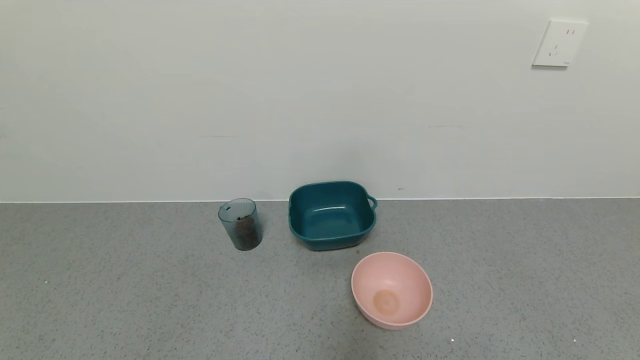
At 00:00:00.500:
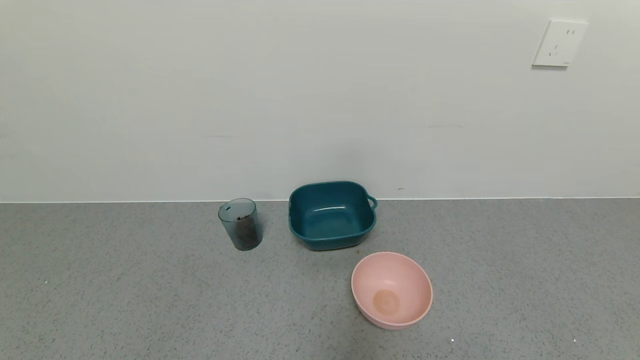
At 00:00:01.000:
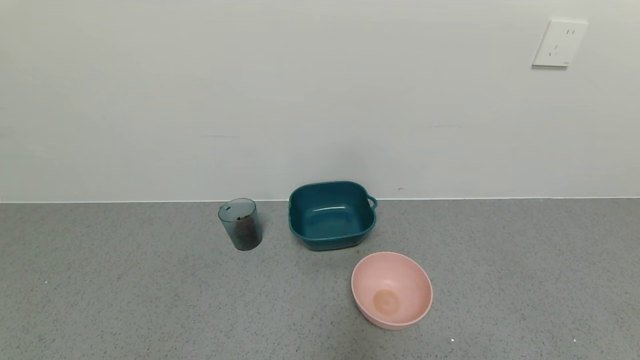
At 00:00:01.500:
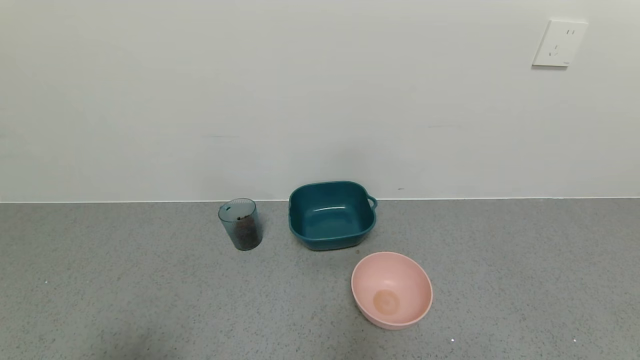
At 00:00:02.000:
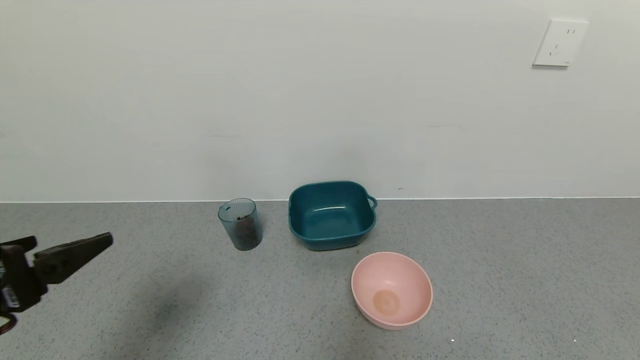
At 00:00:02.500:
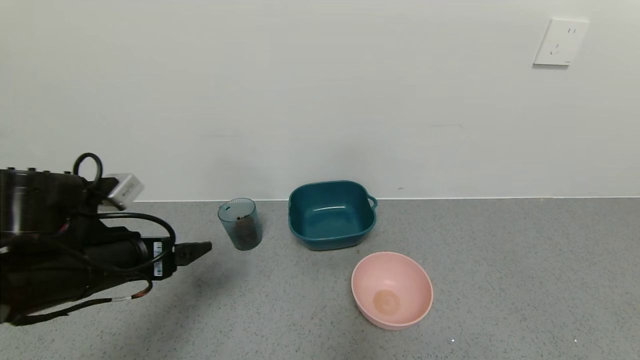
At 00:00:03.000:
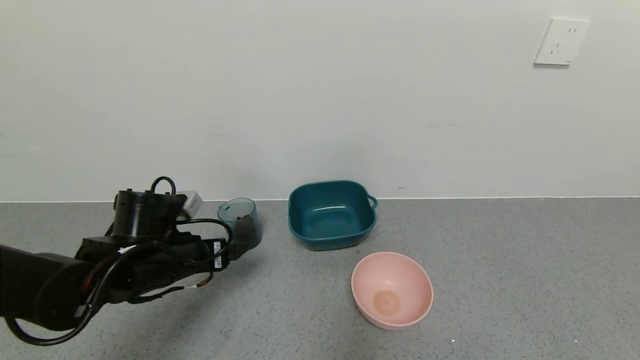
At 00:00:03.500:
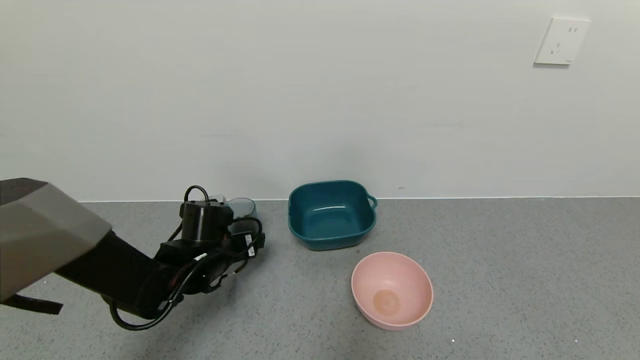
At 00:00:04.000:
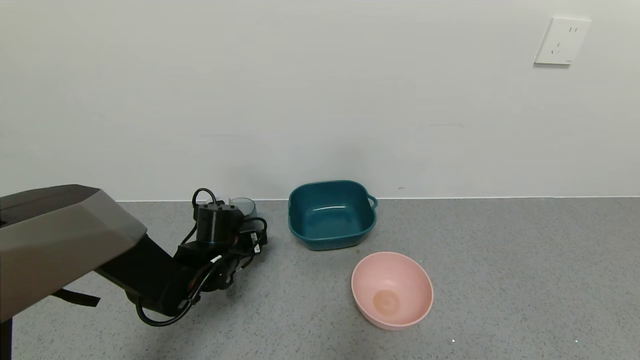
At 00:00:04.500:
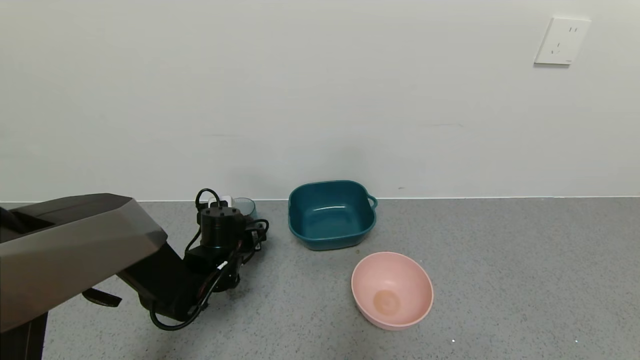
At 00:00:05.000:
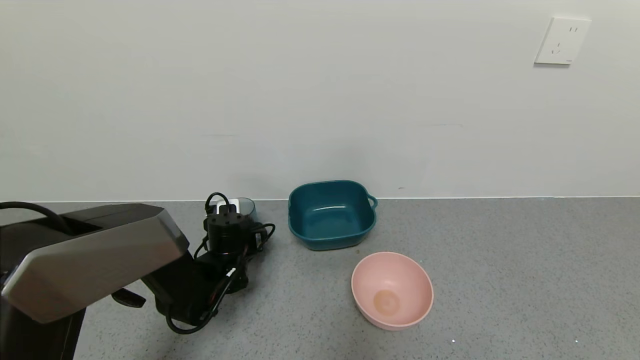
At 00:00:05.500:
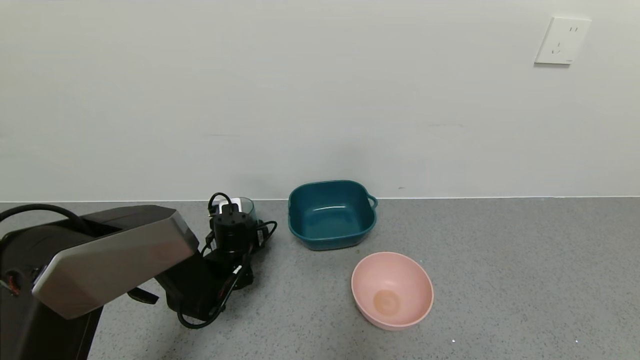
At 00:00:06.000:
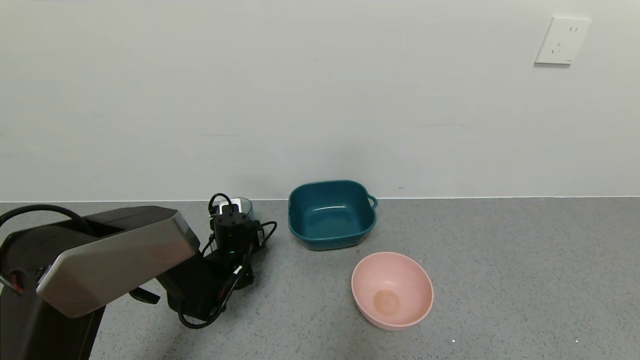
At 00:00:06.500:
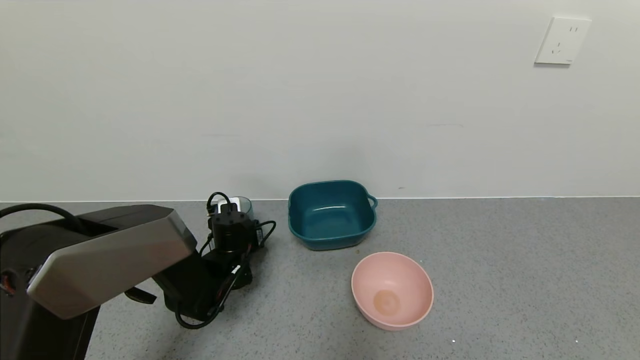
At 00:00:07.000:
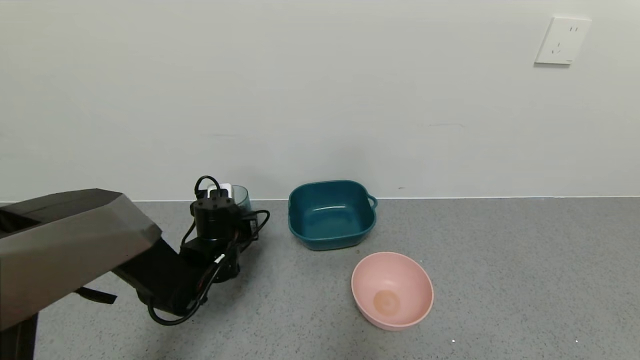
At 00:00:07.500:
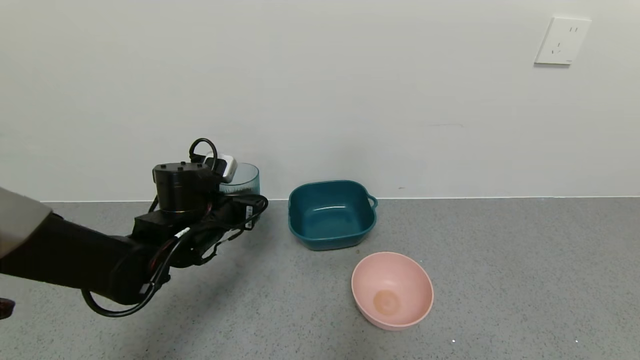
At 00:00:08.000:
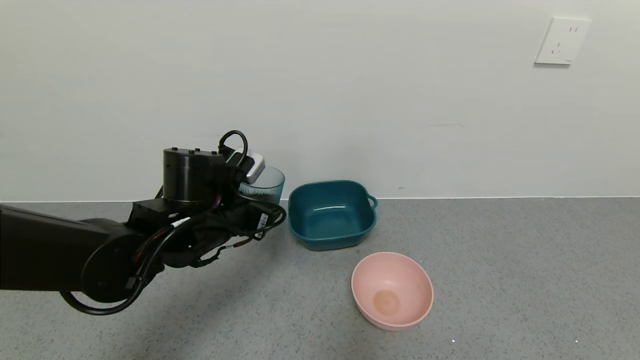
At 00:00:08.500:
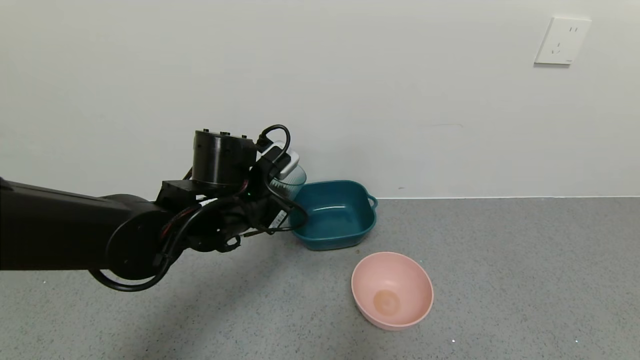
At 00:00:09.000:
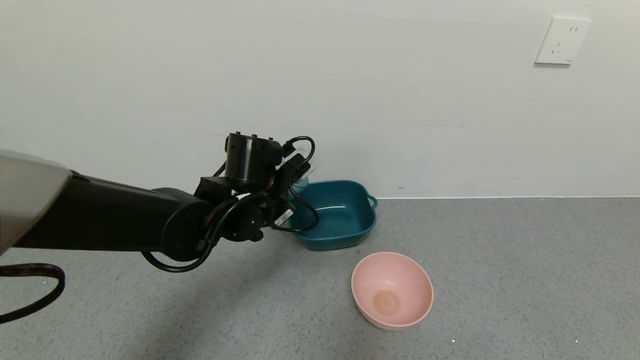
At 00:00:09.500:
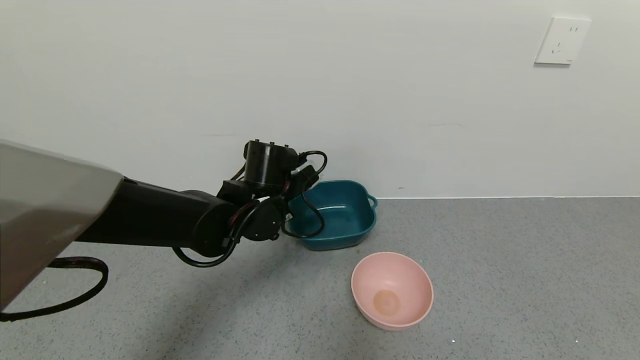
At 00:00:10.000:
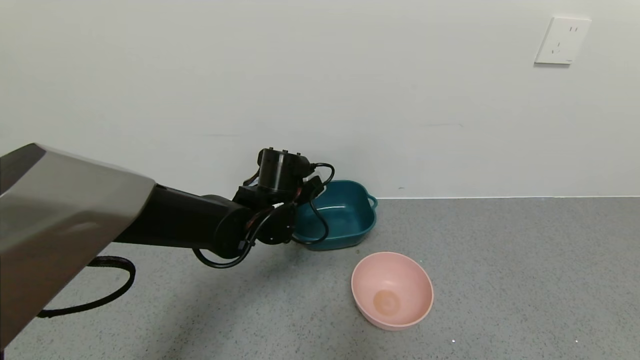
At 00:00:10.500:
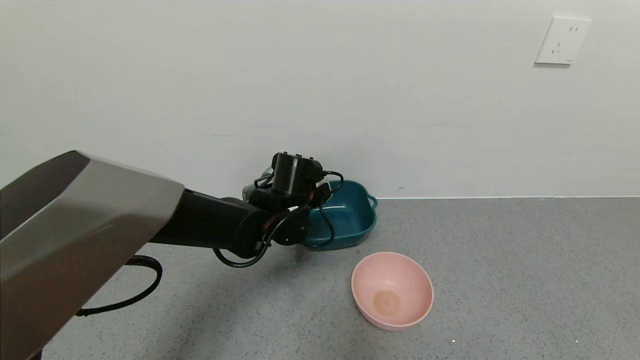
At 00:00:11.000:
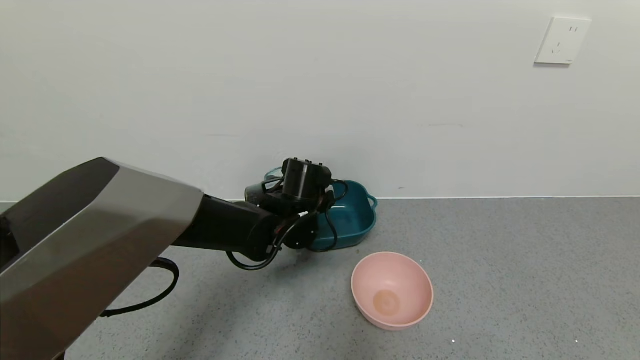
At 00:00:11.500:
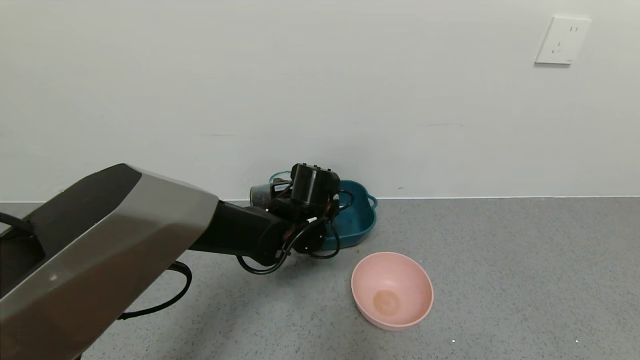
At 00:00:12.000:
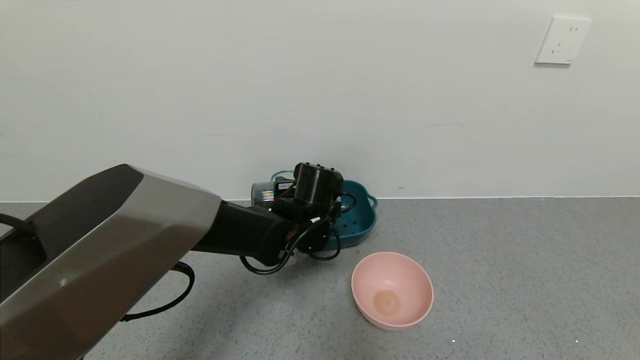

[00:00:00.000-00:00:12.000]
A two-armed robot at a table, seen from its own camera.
Task of the whole recording: use a gripper to pick up the cup and pour the solid into a bowl or tray.
Step, 00:00:00.000 to 00:00:06.000: Grasp the glass of coffee beans with the left gripper.
00:00:00.000 to 00:00:02.000: The left gripper heads upward and forward, covering about 20 cm.
00:00:02.000 to 00:00:04.000: The left gripper heads forward, downward and to the right, covering some 30 cm.
00:00:04.000 to 00:00:06.000: The left gripper shifts by some 5 cm, and closes.
00:00:06.000 to 00:00:08.000: The left gripper travels upward and backward by about 20 cm.
00:00:08.000 to 00:00:10.000: The left gripper goes about 10 cm to the right and forward.

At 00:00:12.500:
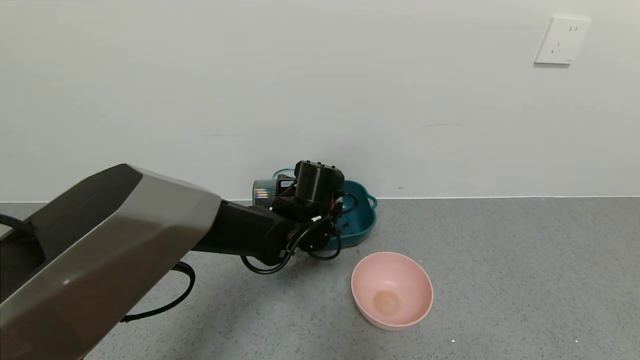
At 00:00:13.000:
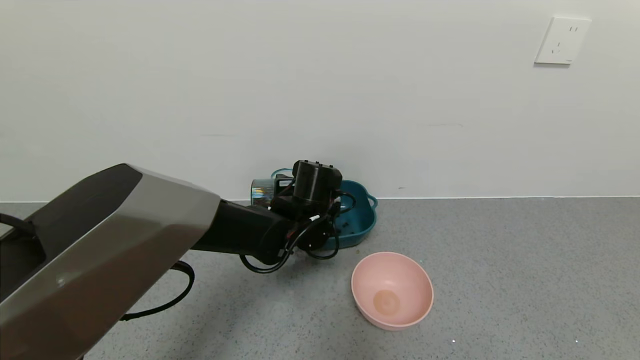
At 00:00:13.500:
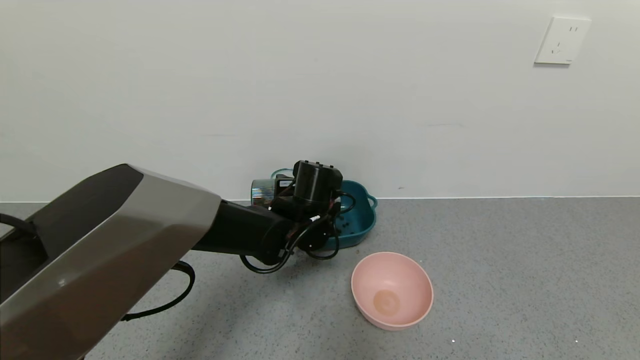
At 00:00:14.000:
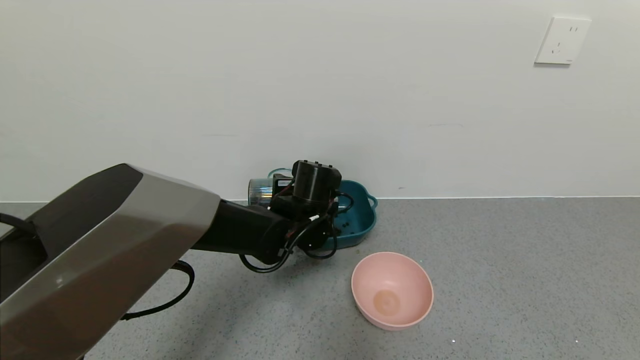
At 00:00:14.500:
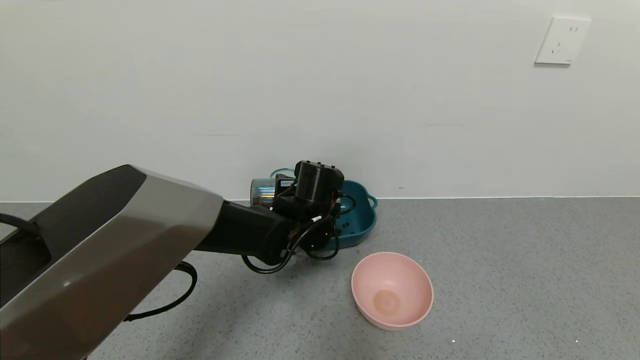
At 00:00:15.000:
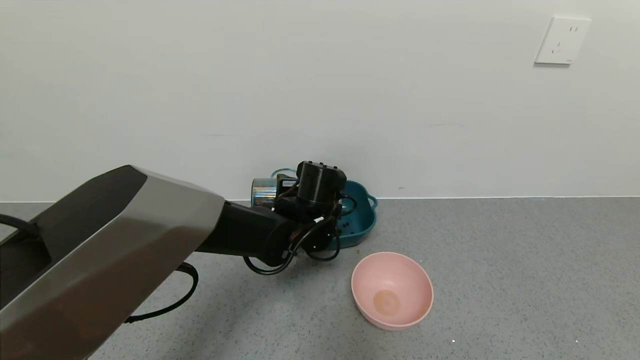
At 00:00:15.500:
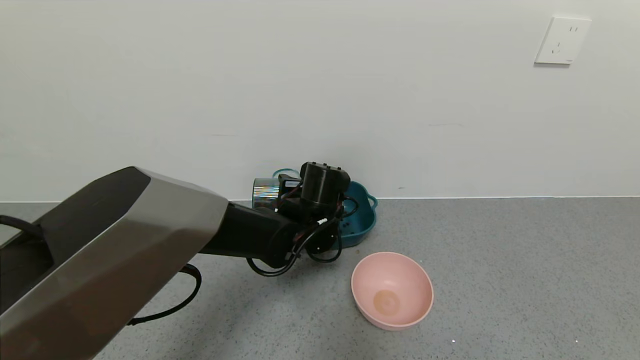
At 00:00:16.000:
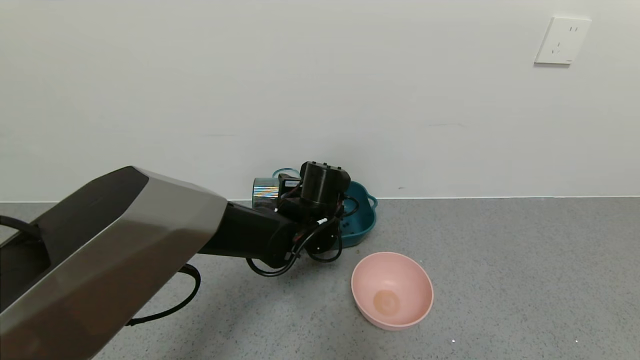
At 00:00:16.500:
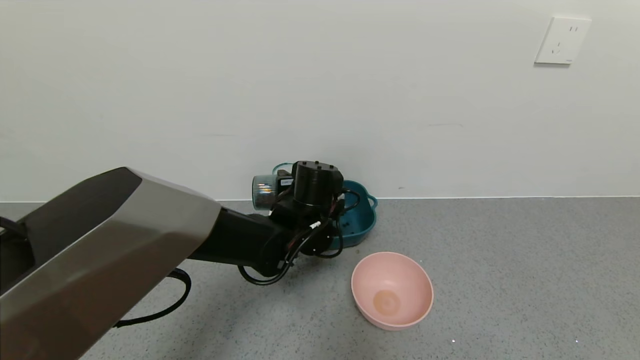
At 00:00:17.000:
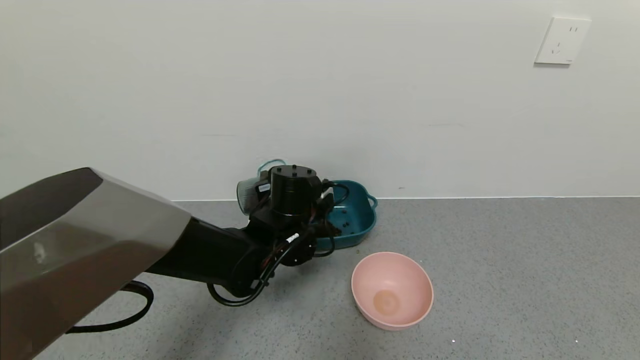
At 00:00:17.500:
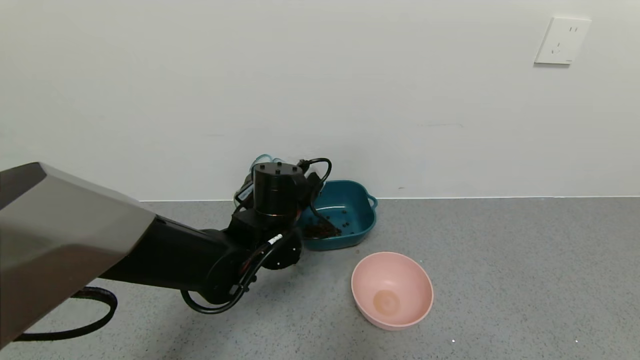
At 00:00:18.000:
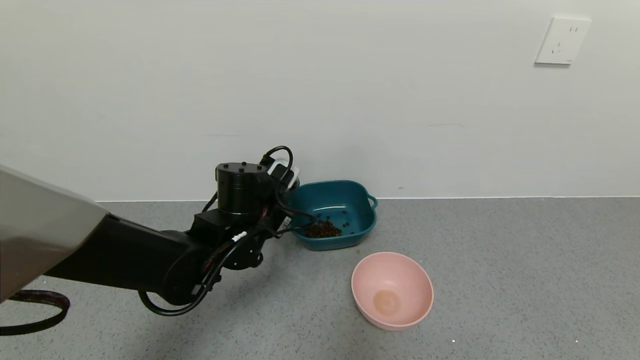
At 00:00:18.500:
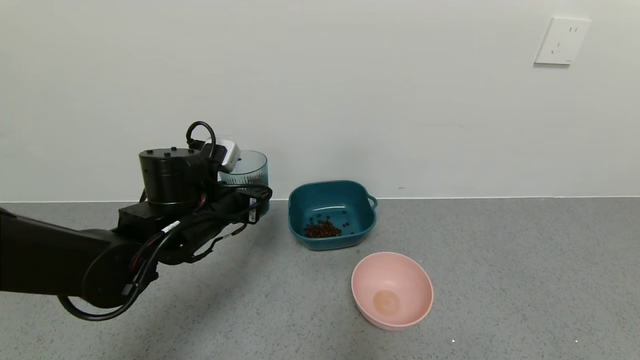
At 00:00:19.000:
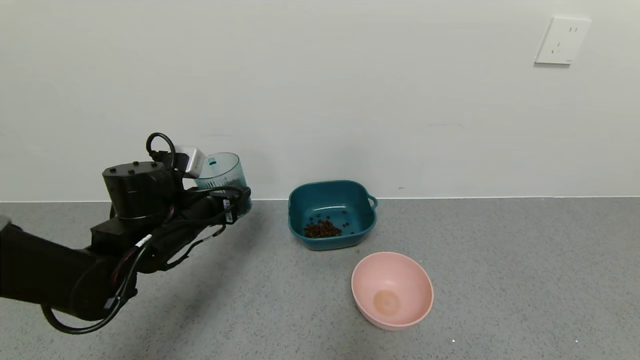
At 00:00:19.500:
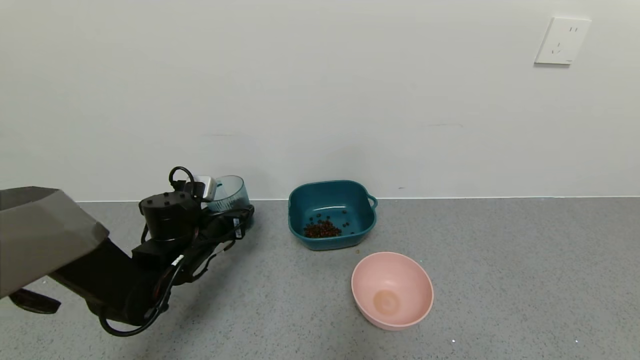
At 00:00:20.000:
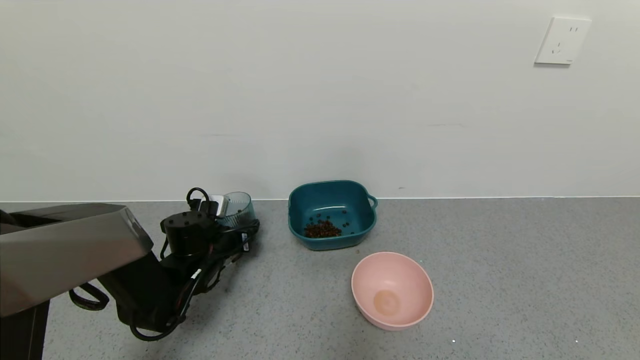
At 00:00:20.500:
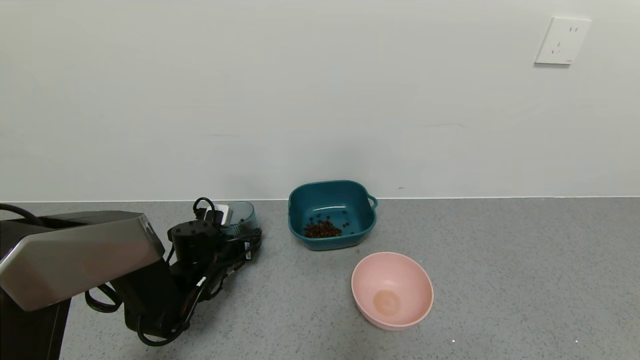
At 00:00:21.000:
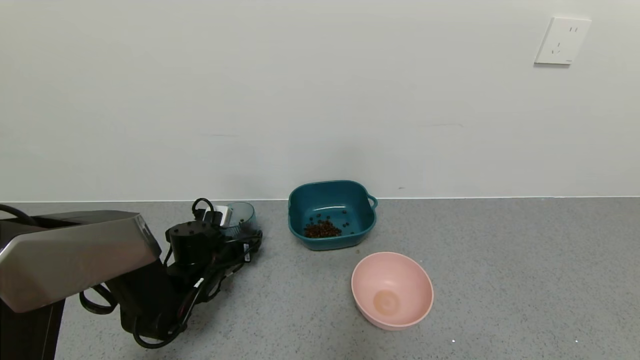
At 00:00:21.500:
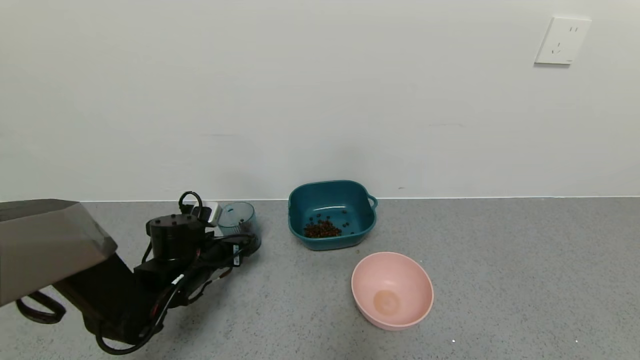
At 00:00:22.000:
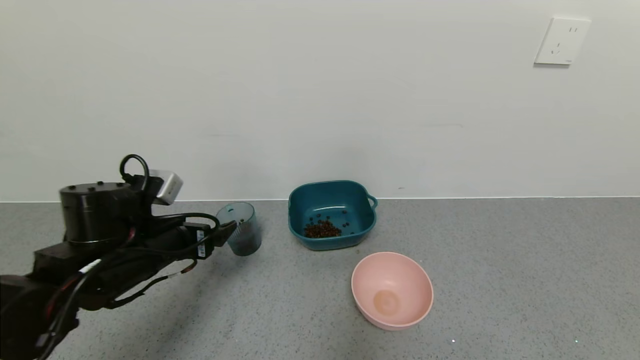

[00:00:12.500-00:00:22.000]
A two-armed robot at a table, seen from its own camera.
Task of the whole recording: use a gripper to pick up the cup and pour the solid into a bowl or tray.
Step, 00:00:12.500 to 00:00:18.000: Pour the coffee beans into the green bowl with the left gripper.
Step, 00:00:18.500 to 00:00:21.500: Place the glass cup with the left gripper.
00:00:12.500 to 00:00:14.500: Neither gripper changes place.
00:00:14.500 to 00:00:16.500: The grippers move only a little.
00:00:16.500 to 00:00:18.000: The left gripper shifts some 5 cm to the left.
00:00:18.000 to 00:00:20.000: The left gripper travels to the left and downward by roughly 15 cm.
00:00:20.000 to 00:00:22.000: The left gripper moves upward and backward, some 15 cm, and opens its fingers.
